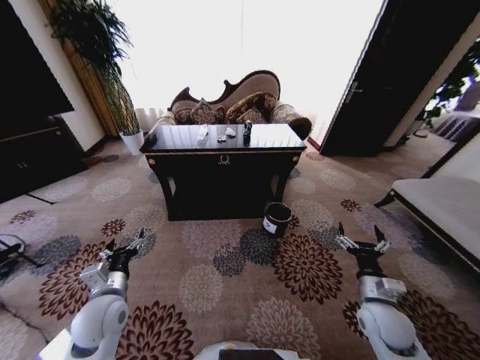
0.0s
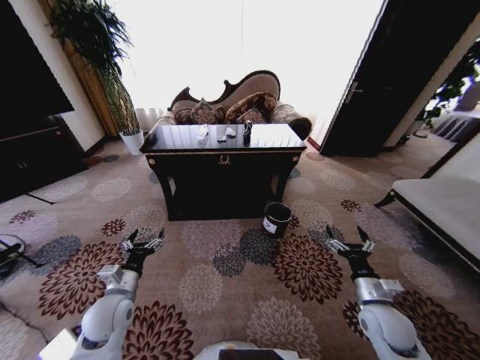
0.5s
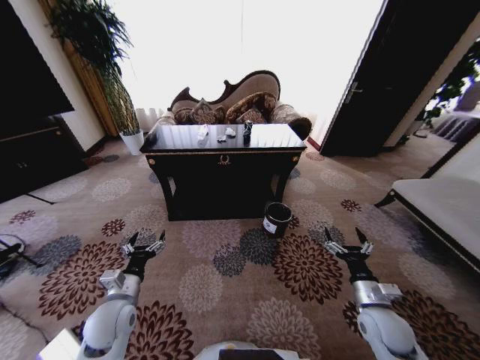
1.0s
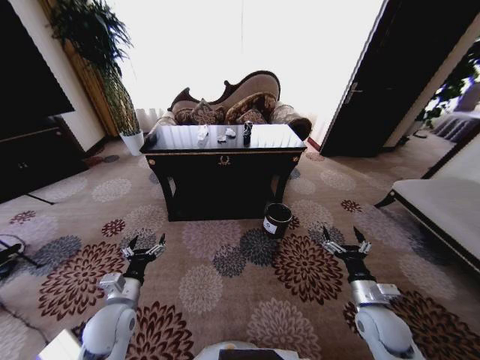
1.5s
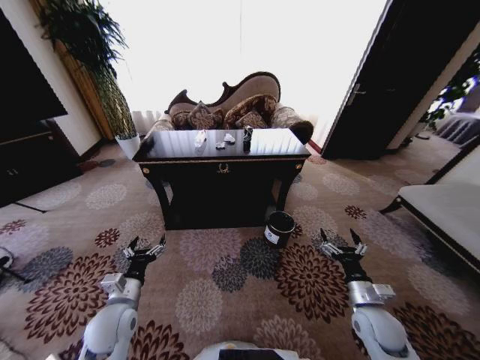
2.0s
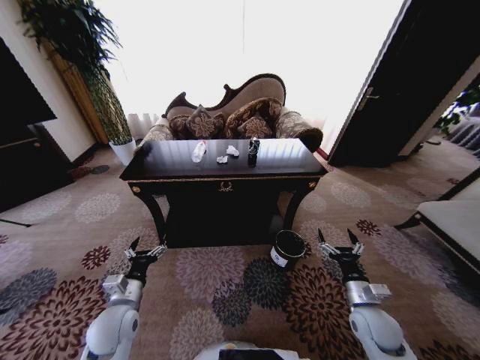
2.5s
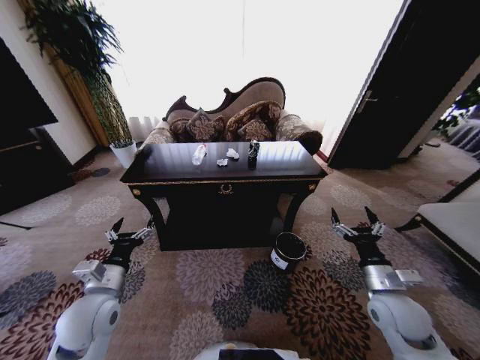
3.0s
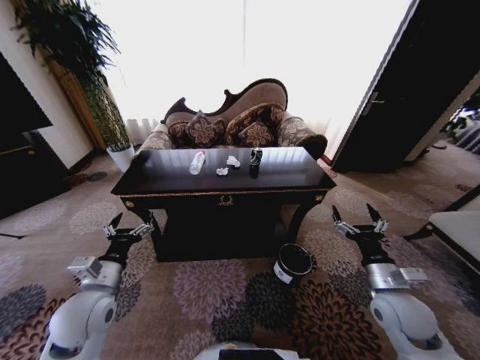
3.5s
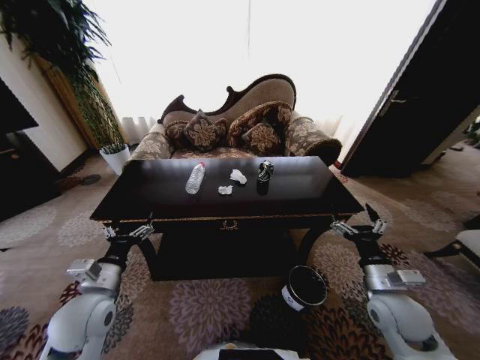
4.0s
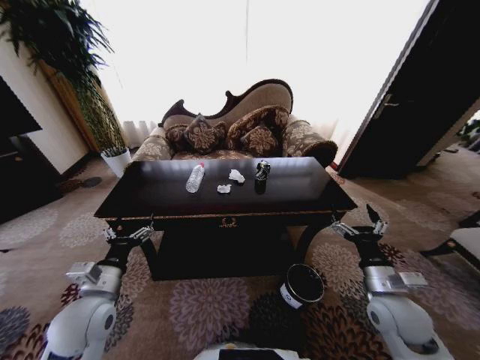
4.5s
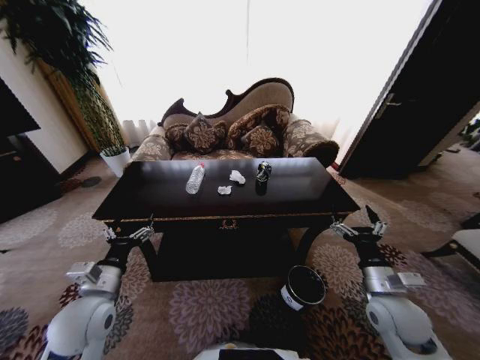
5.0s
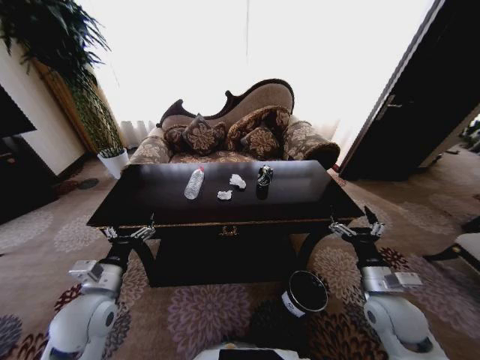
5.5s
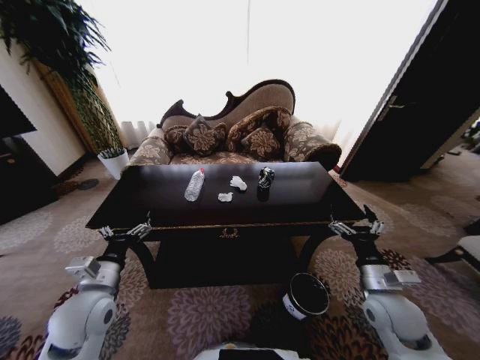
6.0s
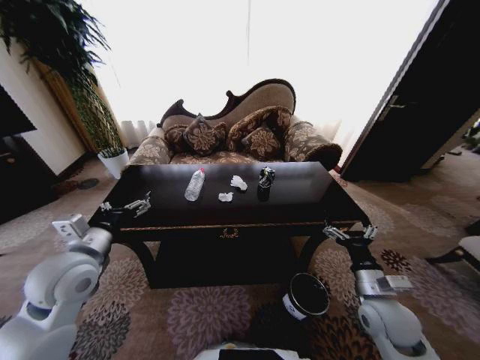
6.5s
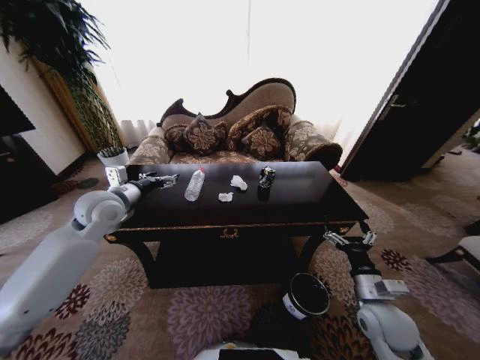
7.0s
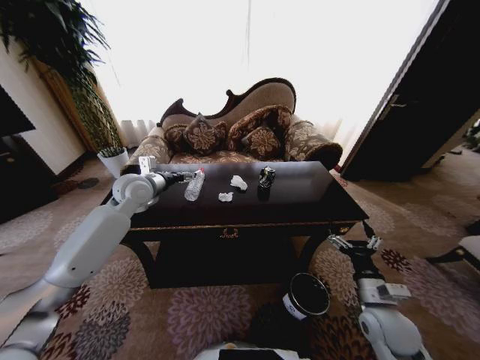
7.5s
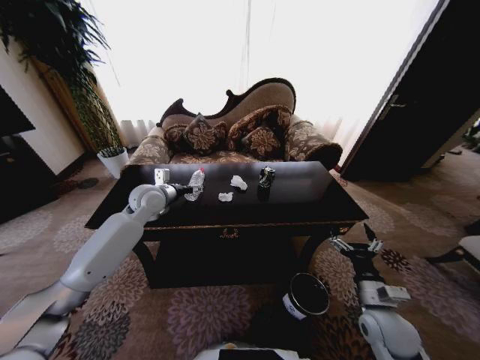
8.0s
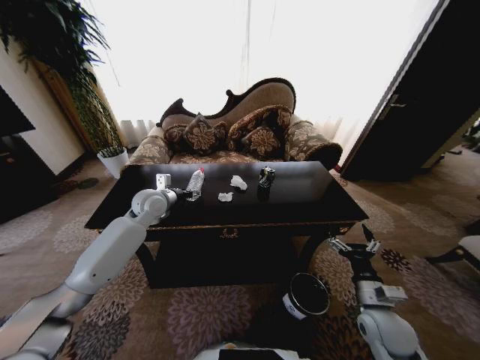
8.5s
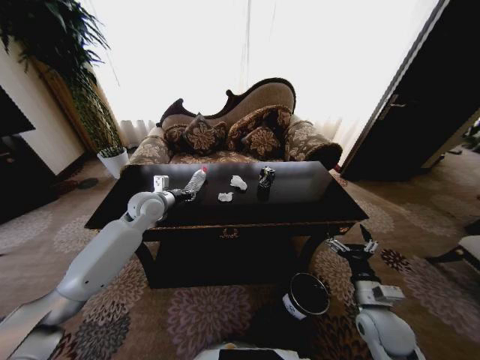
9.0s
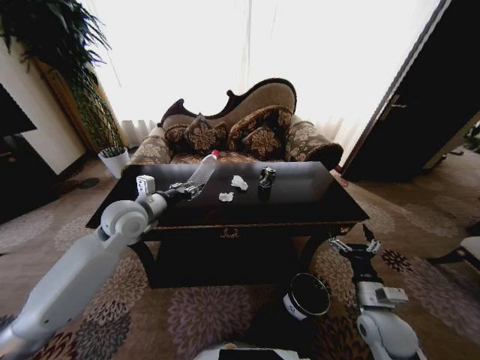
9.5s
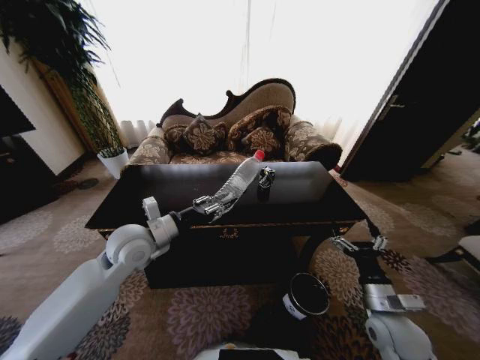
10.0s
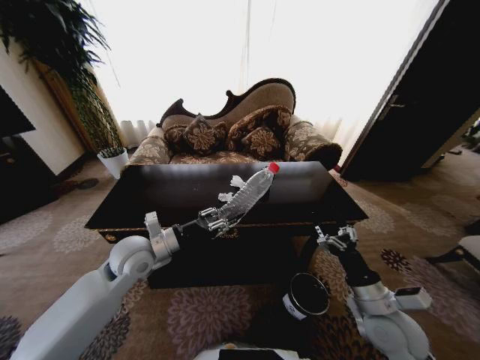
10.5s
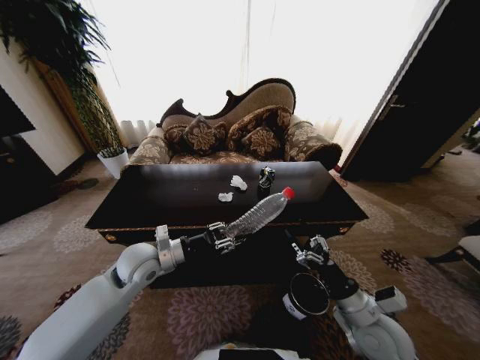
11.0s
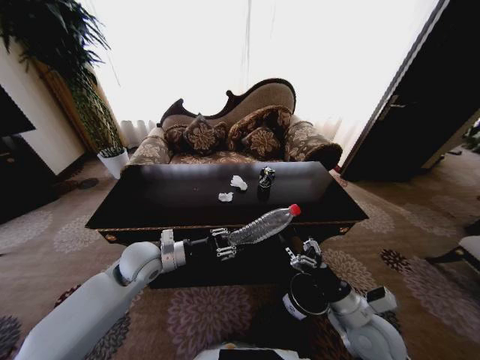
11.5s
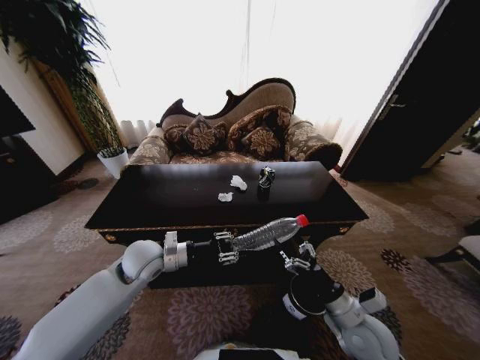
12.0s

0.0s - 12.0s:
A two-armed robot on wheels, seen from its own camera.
Task of the whole recording: Move to the front of the table and place the trash on the table into the trash bin.
2.0s - 4.0s: The two grippers go about 10 cm upward.
4.0s - 6.0s: Both grippers stay put.
6.0s - 8.0s: The left gripper heads forward, covering roughly 25 cm.
8.0s - 10.0s: The left gripper is displaced backward by roughly 15 cm, and closes.
10.0s - 12.0s: The right gripper travels to the left by about 5 cm. The left gripper goes roughly 5 cm downward.

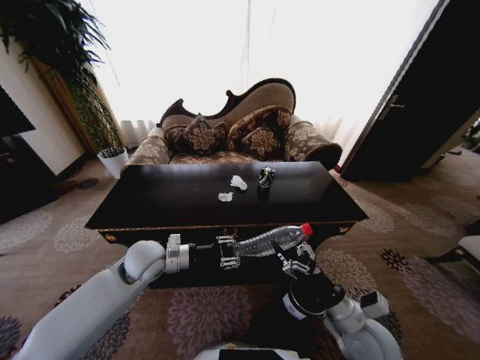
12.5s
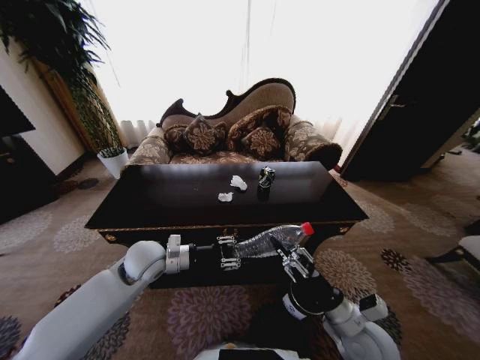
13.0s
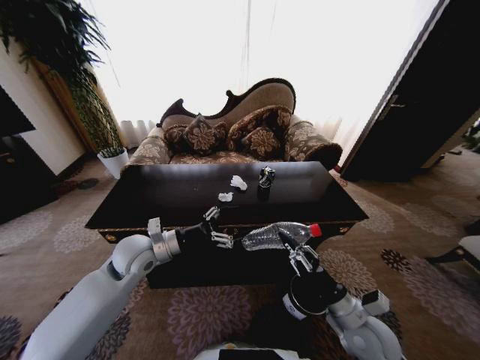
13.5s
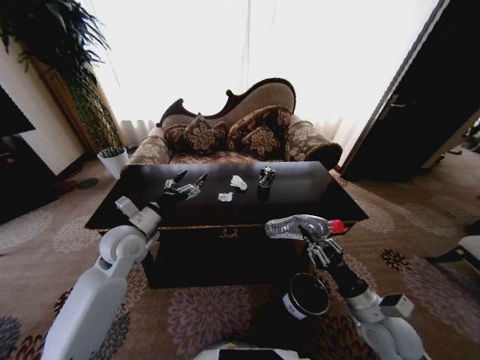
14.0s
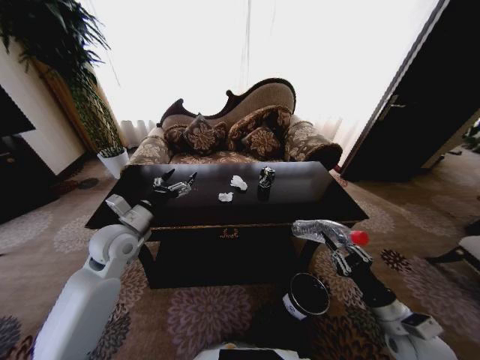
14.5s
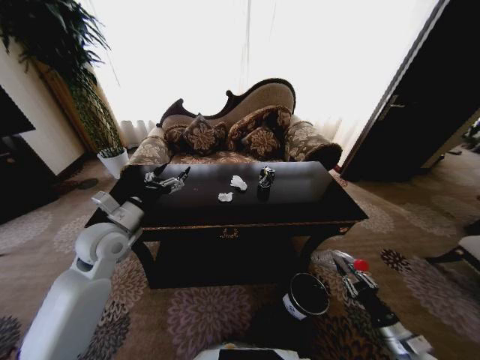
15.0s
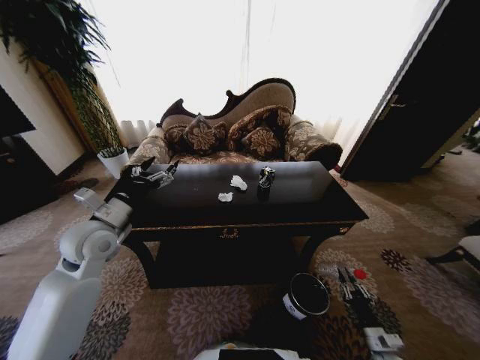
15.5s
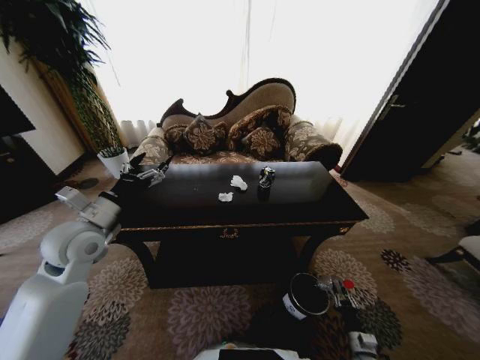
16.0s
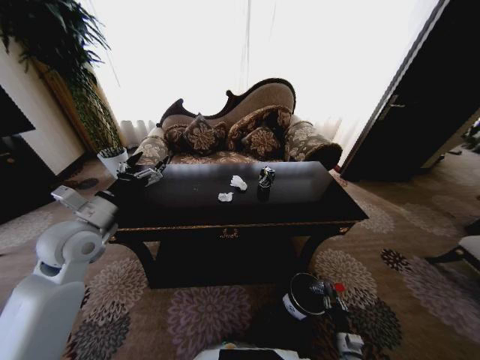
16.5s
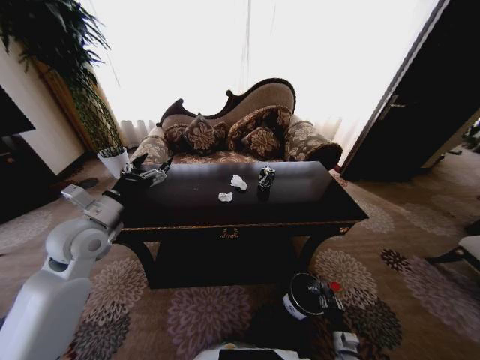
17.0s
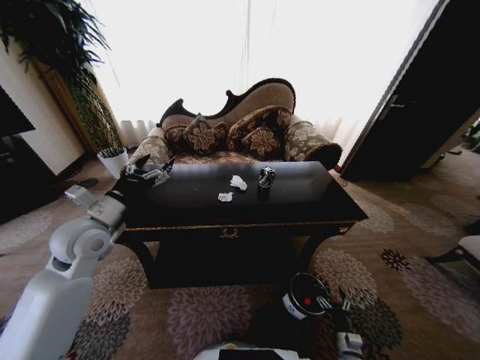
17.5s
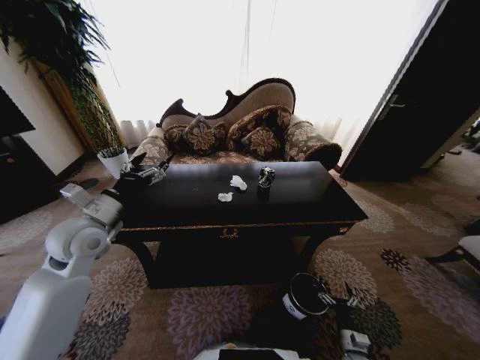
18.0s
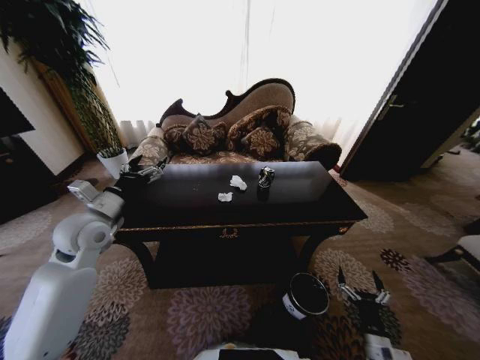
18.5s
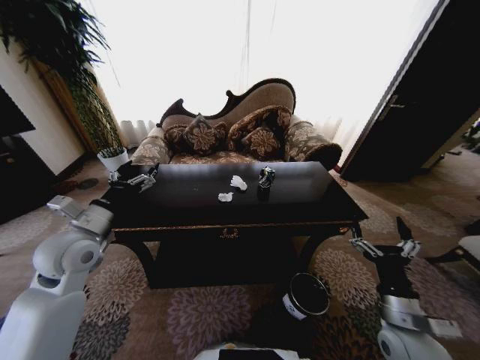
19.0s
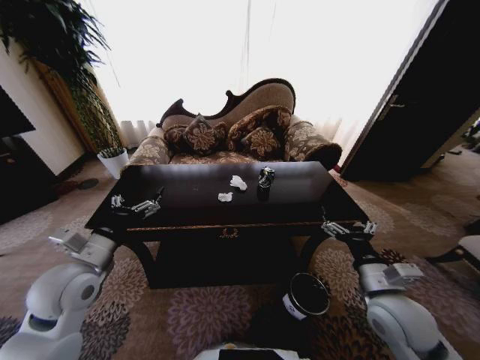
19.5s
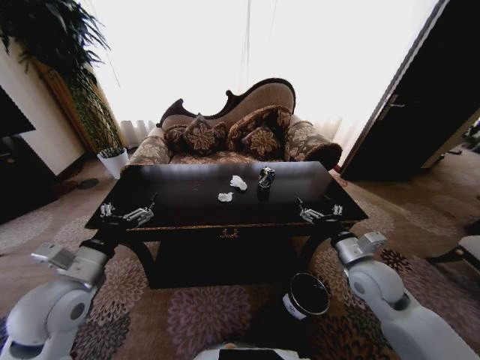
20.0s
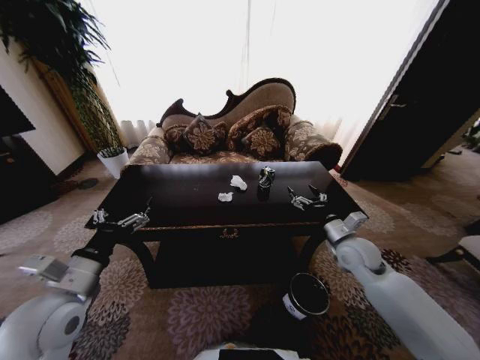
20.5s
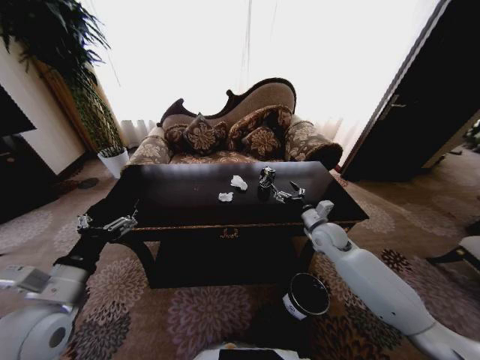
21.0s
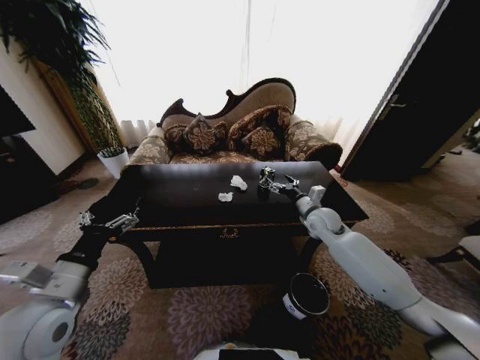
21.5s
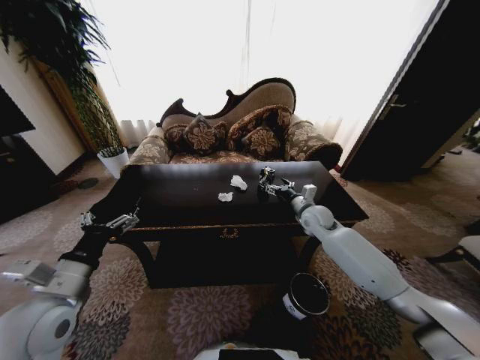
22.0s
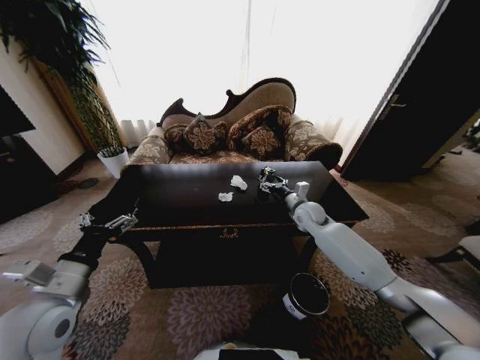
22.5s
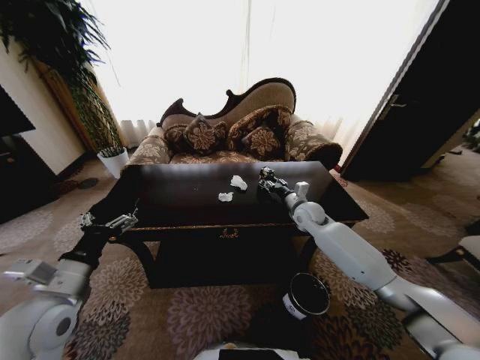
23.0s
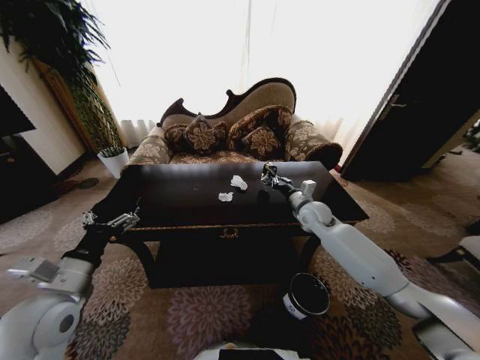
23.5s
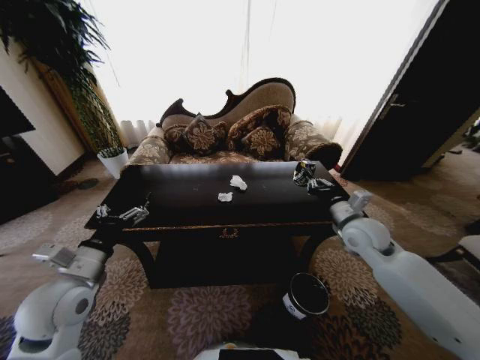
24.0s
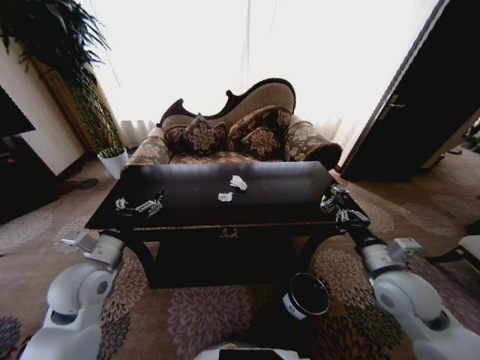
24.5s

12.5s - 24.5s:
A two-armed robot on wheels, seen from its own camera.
Task of the whole recording: Move to the front of the table and place the trash on the table into the trash bin.
12.5s - 14.5s: The right gripper heads to the right, covering some 10 cm, and closes up. Meanwhile the left gripper goes about 5 cm to the left, and opens.
14.5s - 16.5s: The right gripper goes some 30 cm downward; the left gripper travels upward and to the left by about 5 cm.
16.5s - 18.5s: The right gripper heads upward, covering about 15 cm, and opens.
18.5s - 20.5s: The left gripper shifts approximately 15 cm backward. Meanwhile the right gripper goes approximately 35 cm forward and upward.
20.5s - 22.5s: The right gripper goes approximately 15 cm forward and to the left.
22.5s - 24.5s: The right gripper moves backward, about 25 cm, and closes, while the left gripper goes about 5 cm forward.

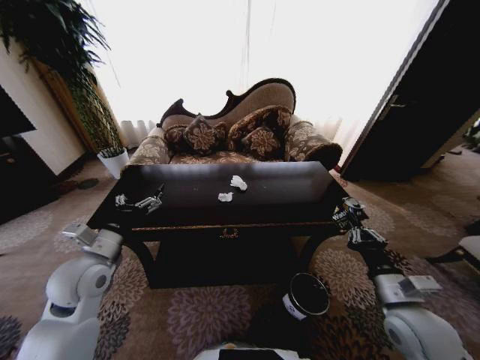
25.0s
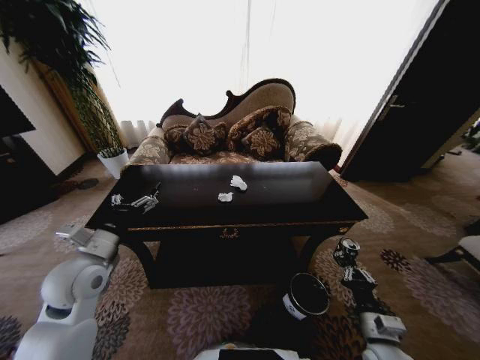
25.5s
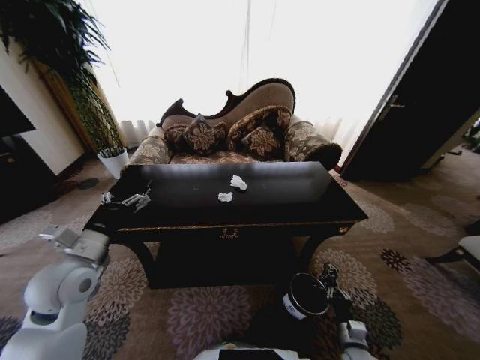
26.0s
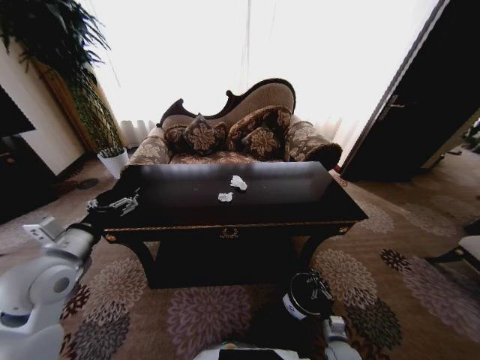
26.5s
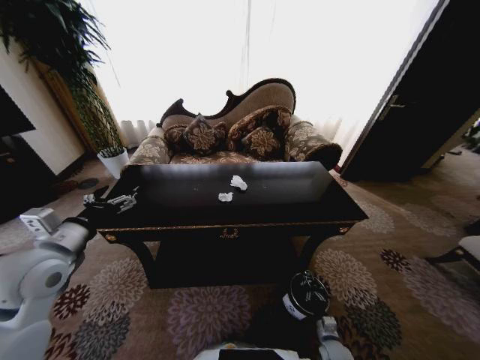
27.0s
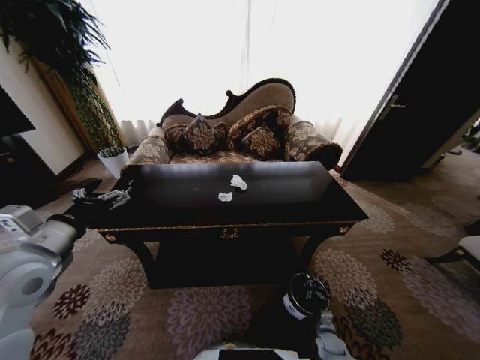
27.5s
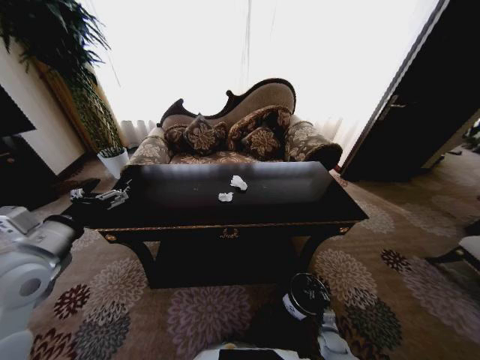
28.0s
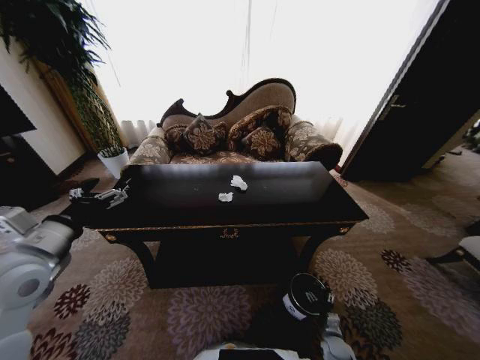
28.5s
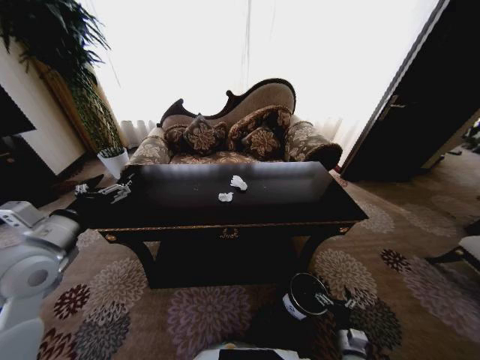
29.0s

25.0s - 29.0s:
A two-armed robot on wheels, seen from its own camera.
Task of the whole recording: Move to the front of the table and place the trash on the table into the trash bin.
25.0s - 27.0s: The left gripper heads upward, covering approximately 5 cm; the right gripper shifts some 35 cm downward.
27.0s - 29.0s: The right gripper heads upward, covering some 5 cm, and opens up.
